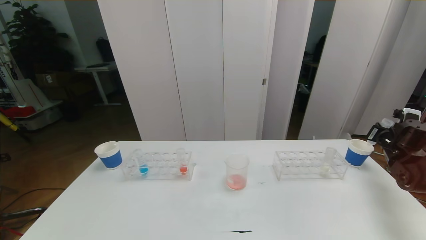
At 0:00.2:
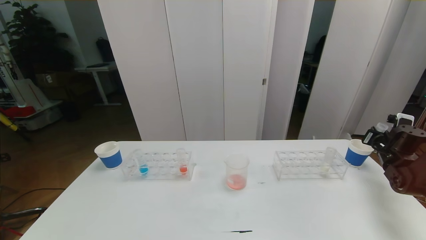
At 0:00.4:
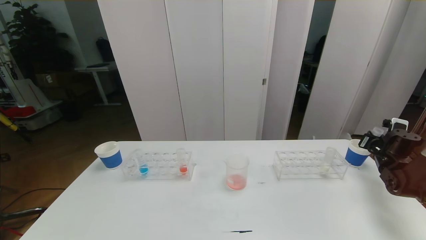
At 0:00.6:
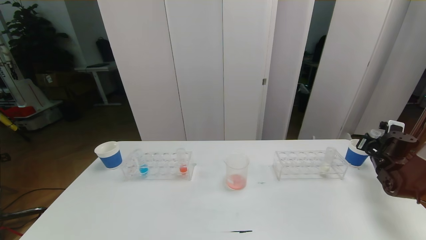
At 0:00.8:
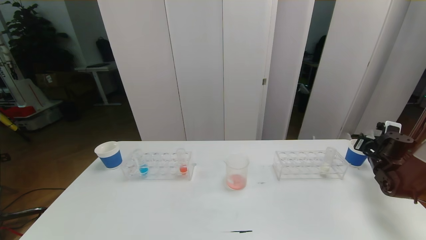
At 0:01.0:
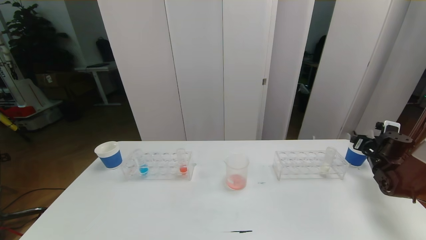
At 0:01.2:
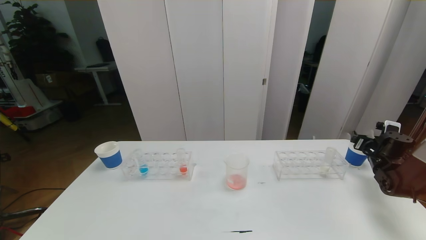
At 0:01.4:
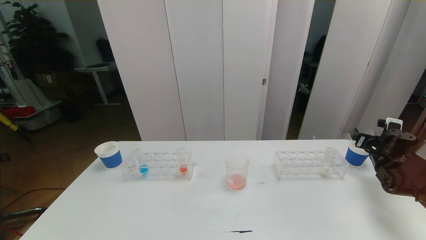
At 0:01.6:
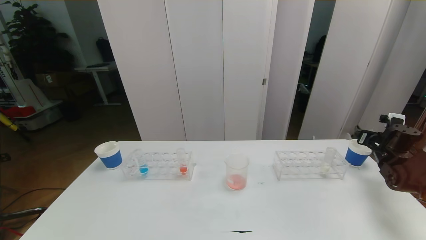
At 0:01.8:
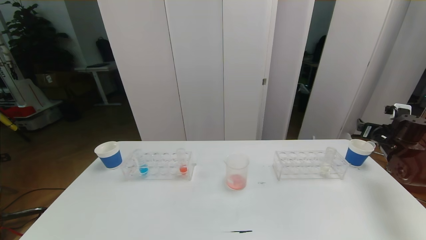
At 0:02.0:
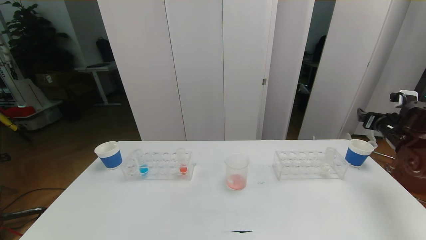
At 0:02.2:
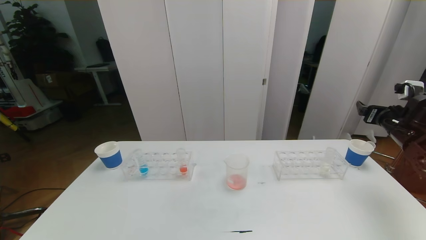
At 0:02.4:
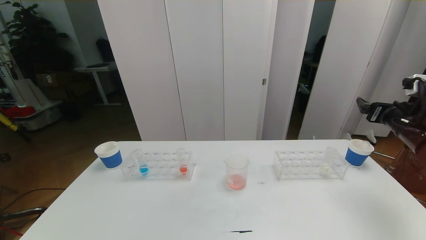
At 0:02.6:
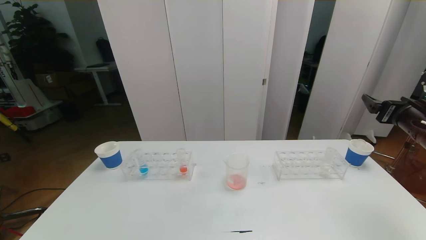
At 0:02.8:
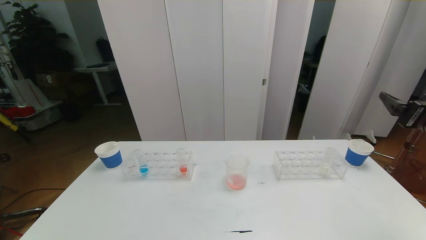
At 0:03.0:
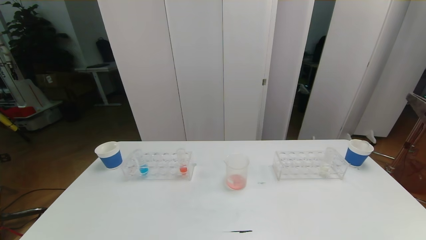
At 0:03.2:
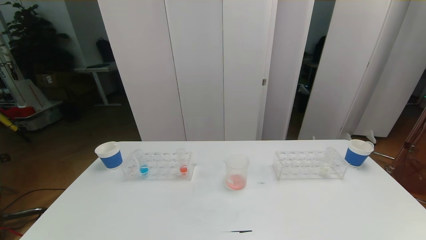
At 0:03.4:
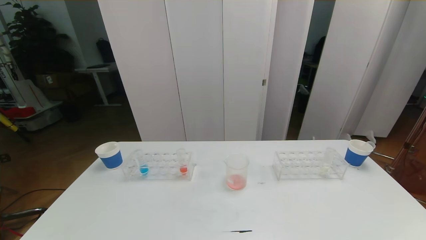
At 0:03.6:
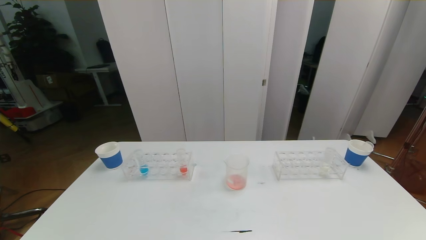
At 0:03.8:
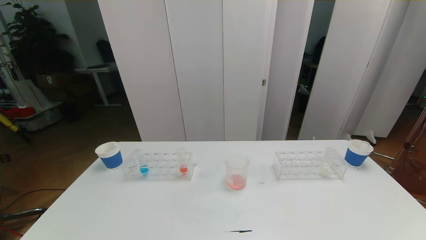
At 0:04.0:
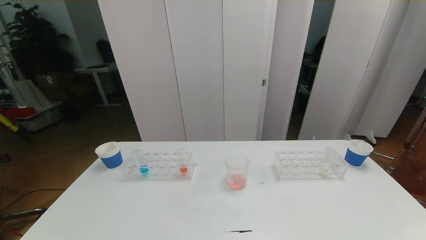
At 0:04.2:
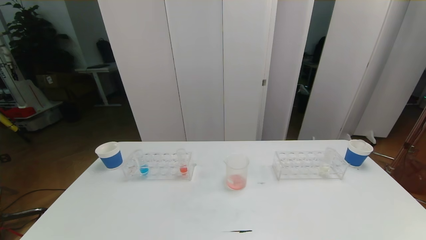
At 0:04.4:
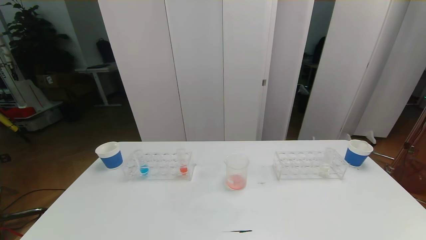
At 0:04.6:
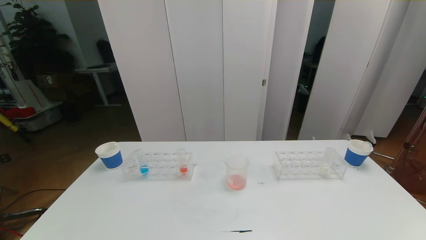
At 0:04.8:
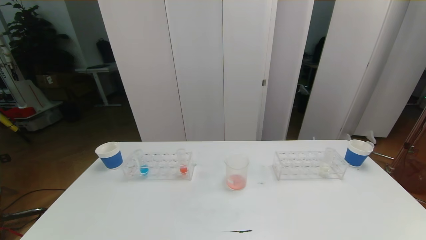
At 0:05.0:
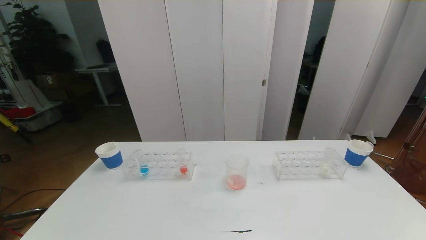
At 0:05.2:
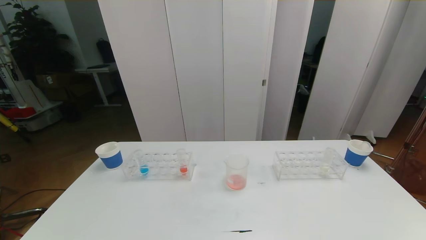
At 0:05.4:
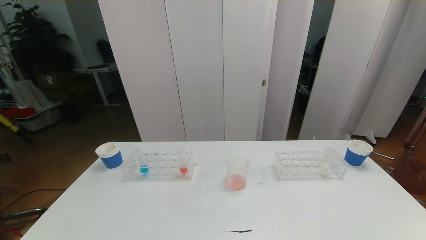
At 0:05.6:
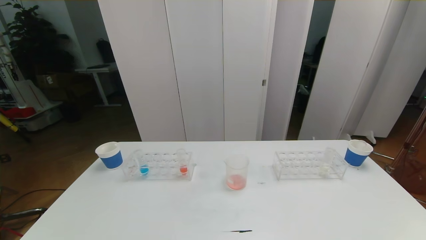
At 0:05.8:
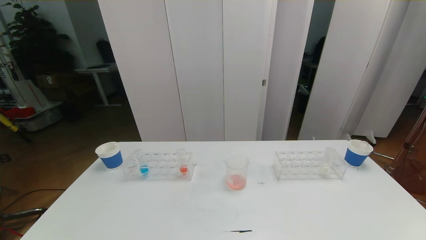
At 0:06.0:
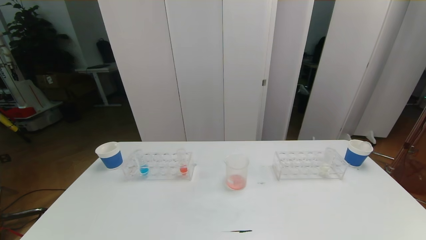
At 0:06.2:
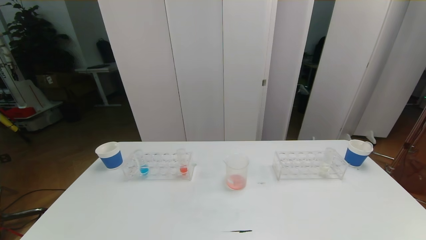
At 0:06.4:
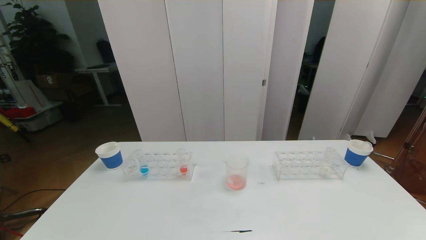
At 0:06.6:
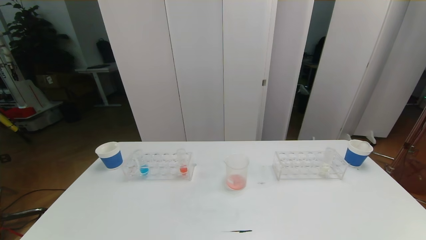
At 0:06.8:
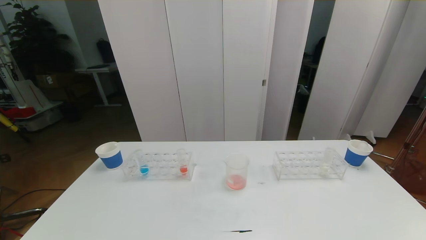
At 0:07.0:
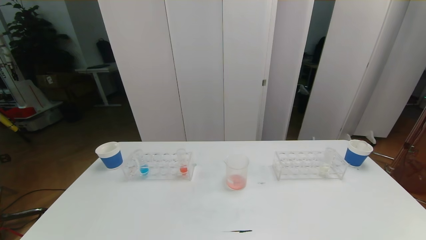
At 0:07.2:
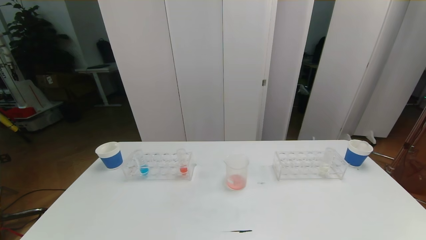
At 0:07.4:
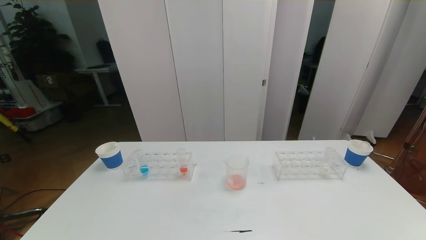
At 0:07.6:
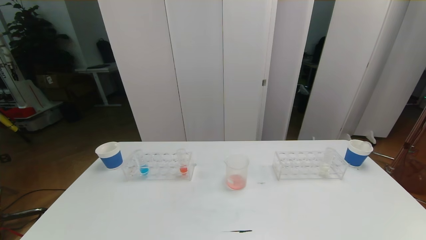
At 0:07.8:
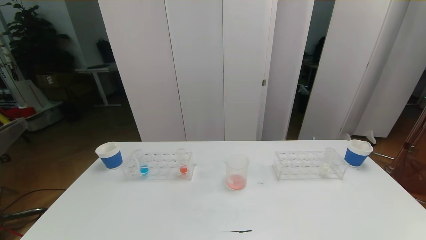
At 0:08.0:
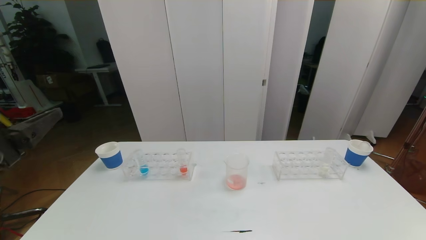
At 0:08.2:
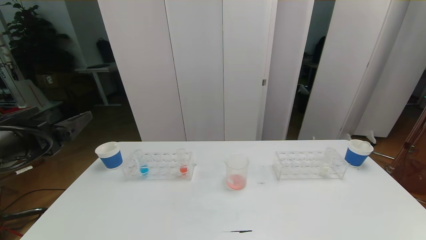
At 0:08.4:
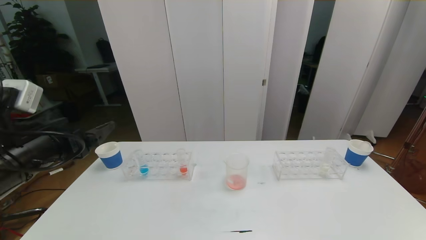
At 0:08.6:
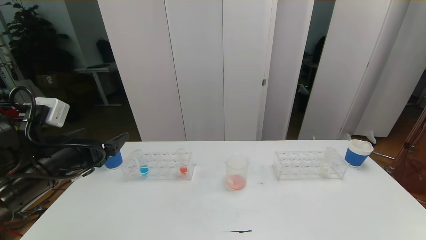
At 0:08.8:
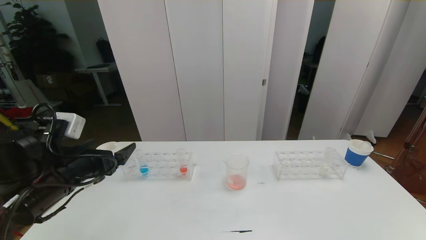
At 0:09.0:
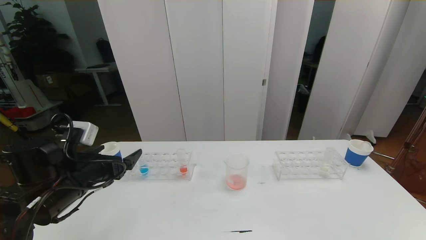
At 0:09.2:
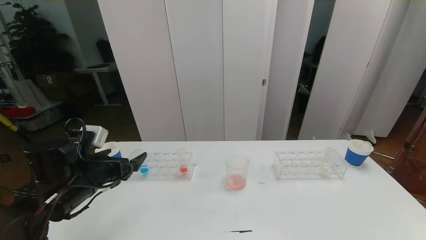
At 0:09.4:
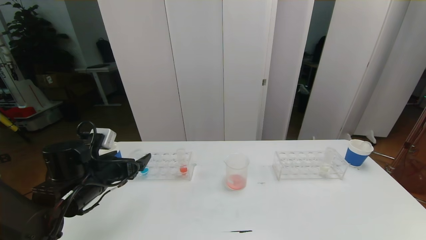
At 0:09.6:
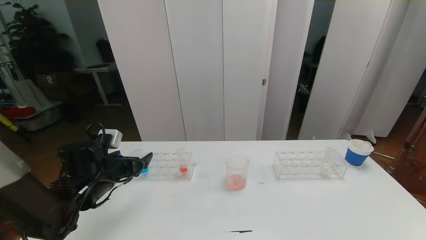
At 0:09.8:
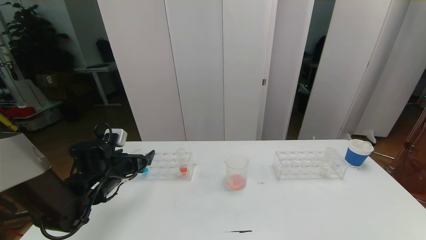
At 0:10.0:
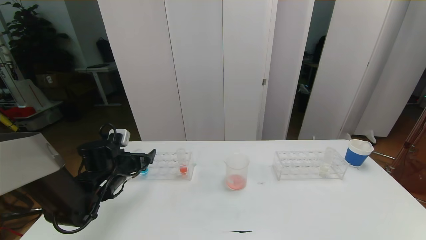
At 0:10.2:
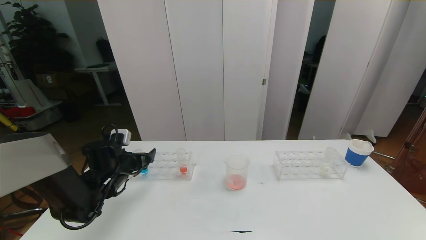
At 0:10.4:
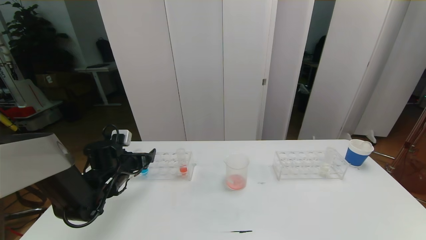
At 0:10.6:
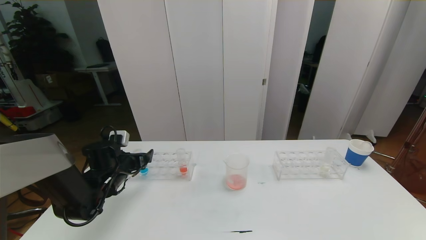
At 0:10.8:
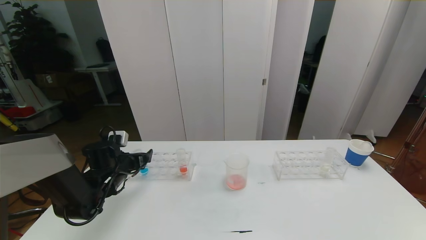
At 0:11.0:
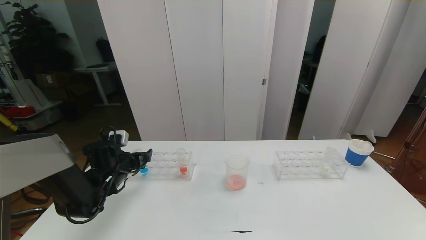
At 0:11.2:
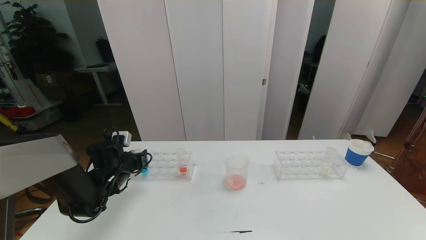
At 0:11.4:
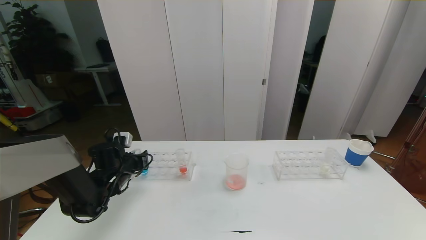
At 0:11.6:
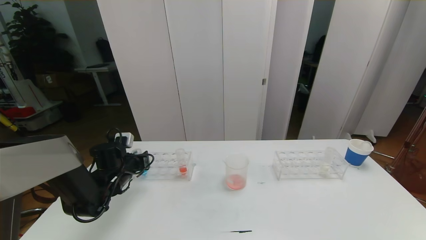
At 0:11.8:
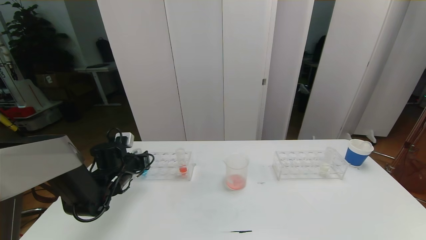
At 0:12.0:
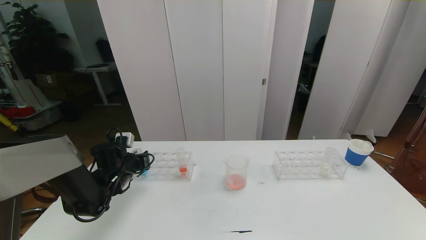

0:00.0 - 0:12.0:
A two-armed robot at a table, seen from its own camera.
Task of the whole recording: pick up the test tube with red pigment the test tube with blue pigment and the test tube with white pigment by grippers and pour them into the beaker.
Step, 0:00.0 - 0:07.0: Pour the red reagent into the graduated cylinder and place the test tube into the paper cup.
0:00.0 - 0:01.6: The right gripper opens its fingers.
0:01.6 - 0:03.0: The right gripper moves backward, upward and to the left, about 30 cm.
0:07.6 - 0:09.0: The left gripper moves forward and downward, approximately 25 cm.
0:09.0 - 0:10.4: The left gripper moves forward and downward, some 15 cm.
0:10.4 - 0:12.0: The left gripper closes up.

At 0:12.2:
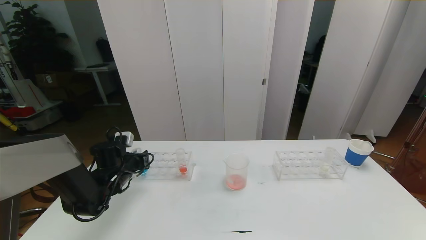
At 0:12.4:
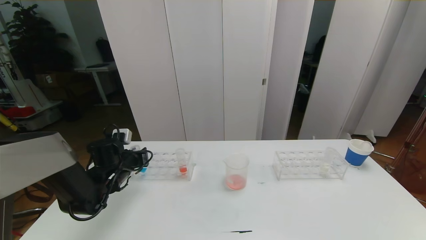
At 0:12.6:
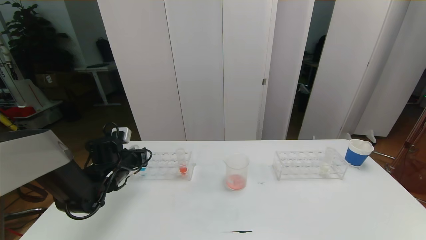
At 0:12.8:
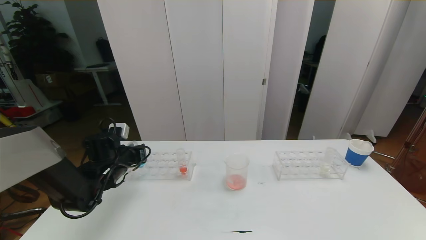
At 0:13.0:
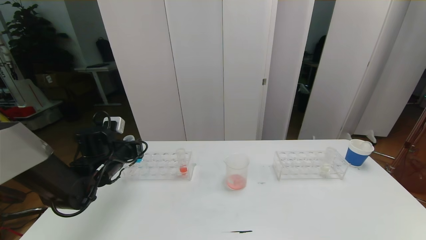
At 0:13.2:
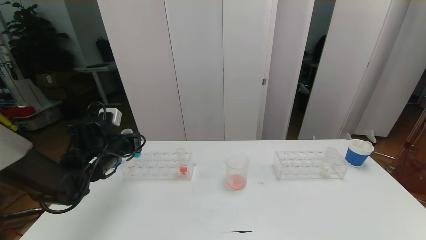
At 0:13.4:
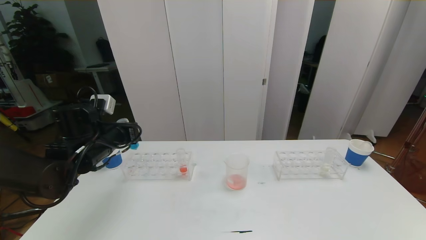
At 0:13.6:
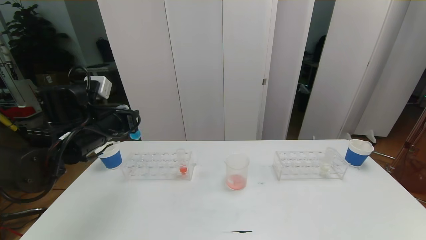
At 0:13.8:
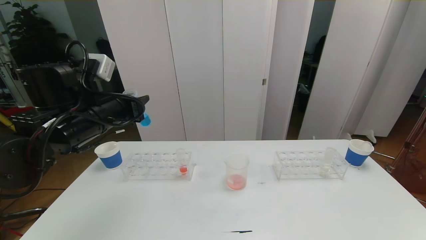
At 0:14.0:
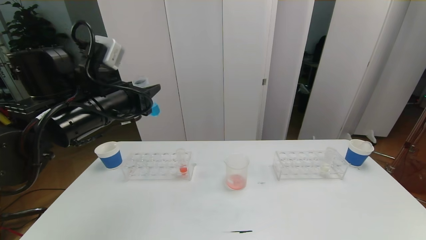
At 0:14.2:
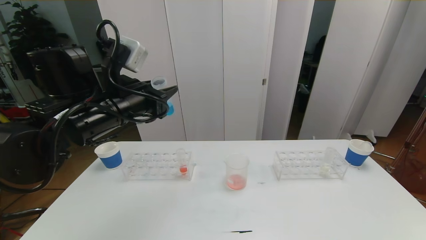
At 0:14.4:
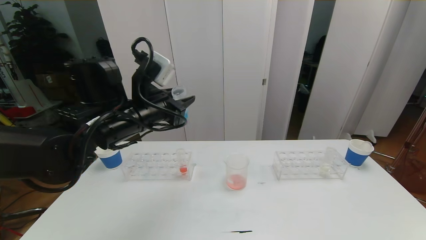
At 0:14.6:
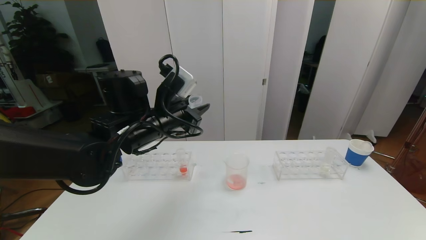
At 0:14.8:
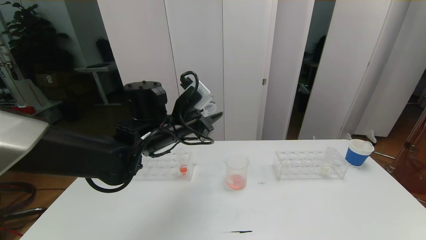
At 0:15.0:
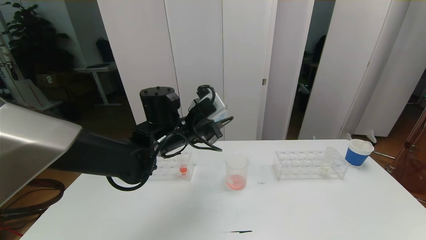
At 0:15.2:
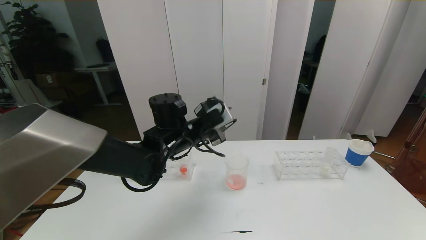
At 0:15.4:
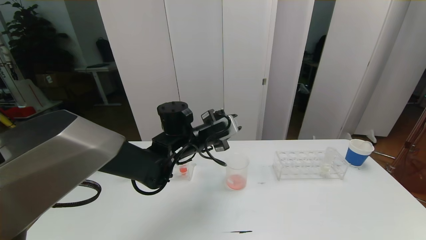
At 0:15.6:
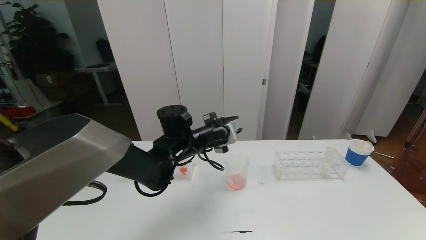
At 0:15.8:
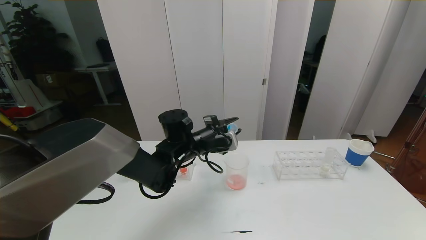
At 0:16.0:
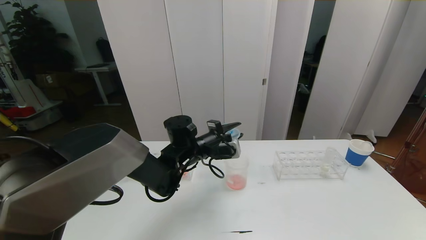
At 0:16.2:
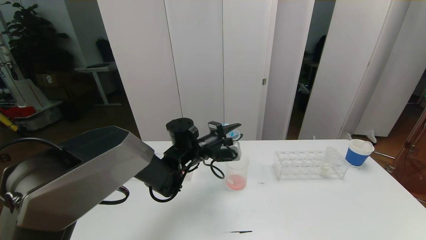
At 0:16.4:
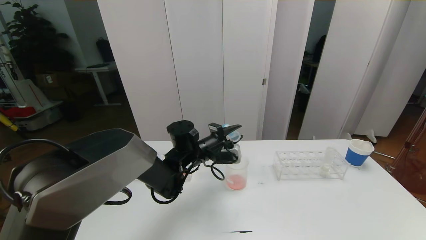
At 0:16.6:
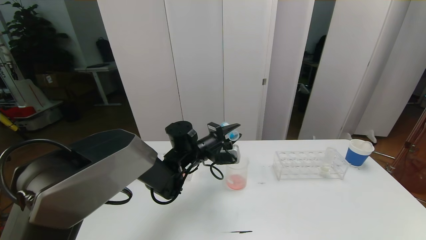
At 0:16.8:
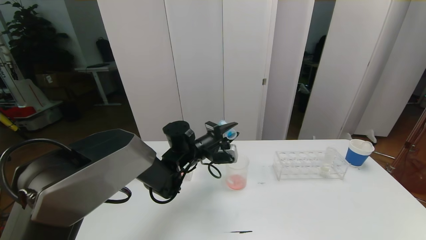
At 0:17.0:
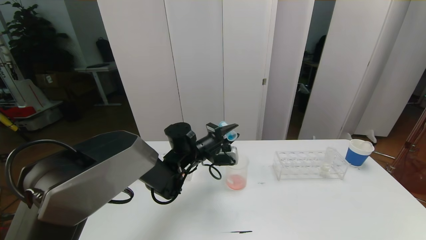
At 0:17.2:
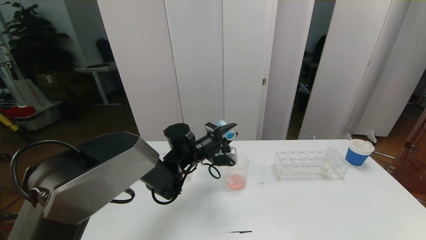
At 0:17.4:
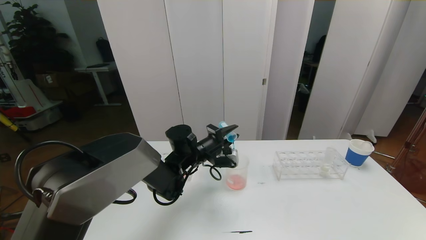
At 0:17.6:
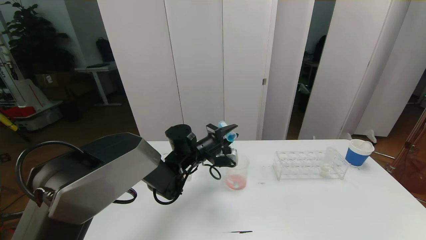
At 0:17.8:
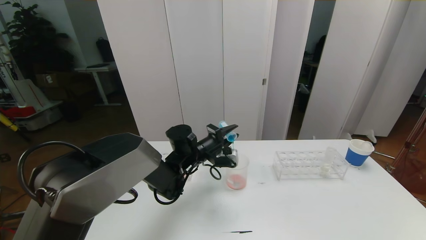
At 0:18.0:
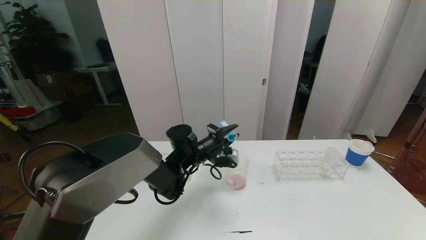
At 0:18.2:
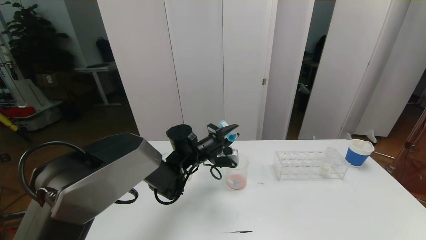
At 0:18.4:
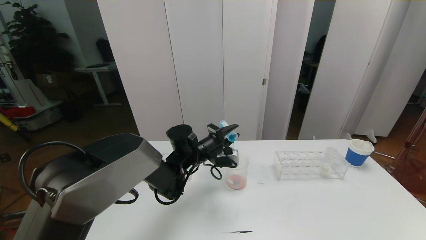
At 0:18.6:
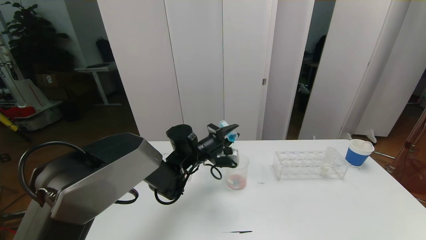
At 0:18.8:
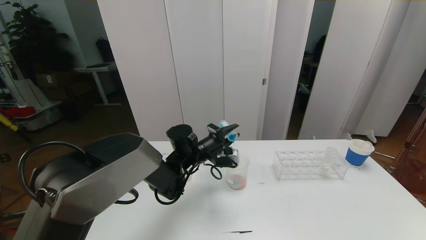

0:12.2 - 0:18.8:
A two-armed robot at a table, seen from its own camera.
Task of the whole recording: pick up the test tube with red pigment the test tube with blue pigment and the test tube with white pigment by grippers and pour them into the beaker.
0:12.2 - 0:13.8: The left gripper shifts roughly 20 cm upward.
0:13.8 - 0:15.4: The left gripper goes some 20 cm to the right, downward and forward.
0:15.4 - 0:17.2: The left gripper goes roughly 5 cm downward.
0:17.2 - 0:18.8: Both grippers stay put.
